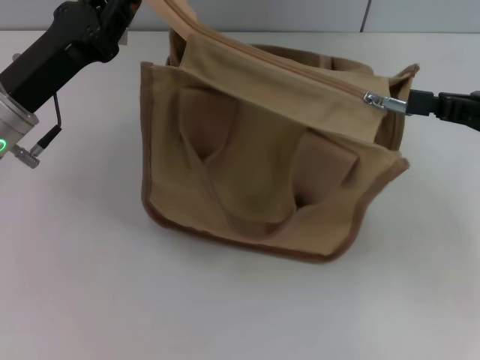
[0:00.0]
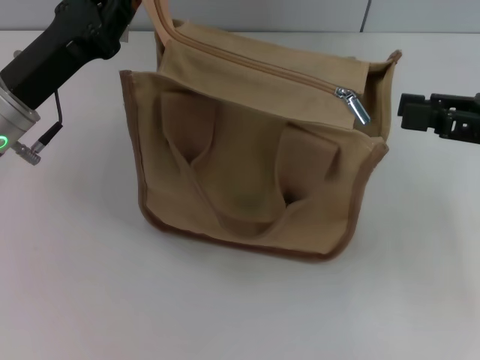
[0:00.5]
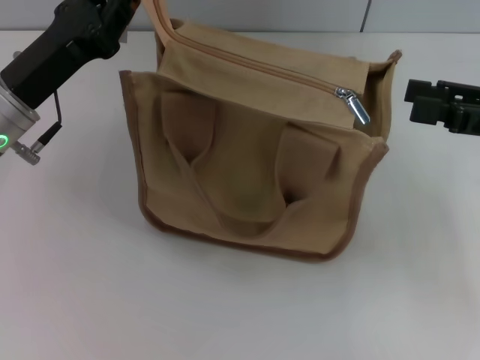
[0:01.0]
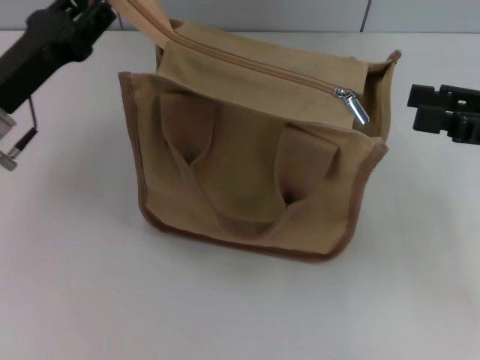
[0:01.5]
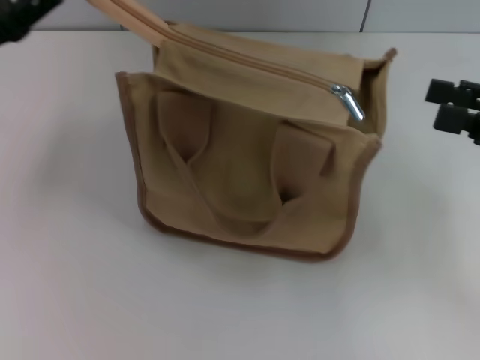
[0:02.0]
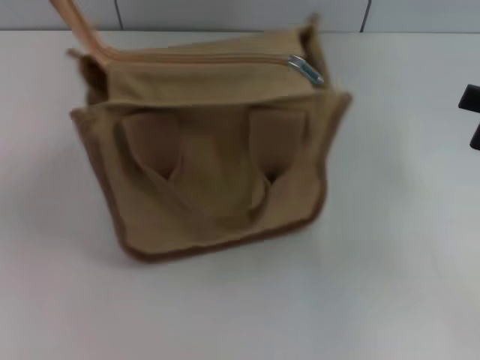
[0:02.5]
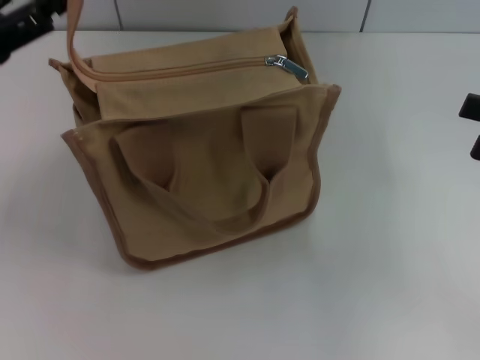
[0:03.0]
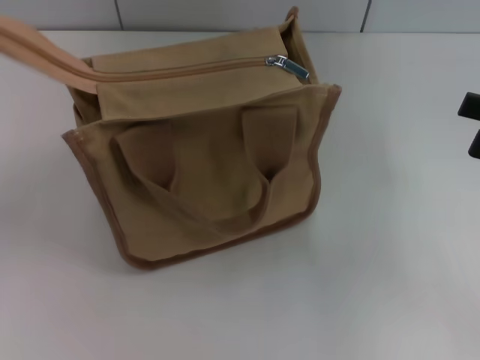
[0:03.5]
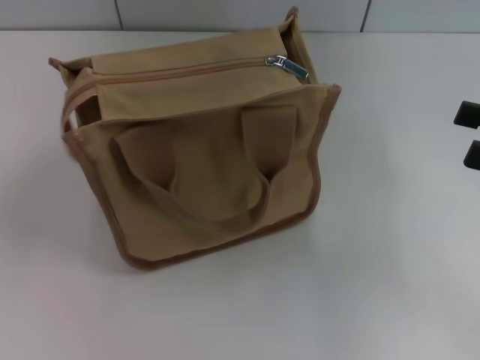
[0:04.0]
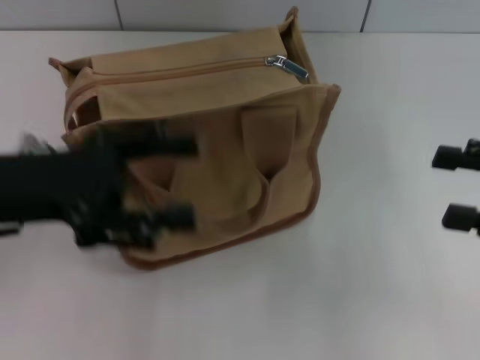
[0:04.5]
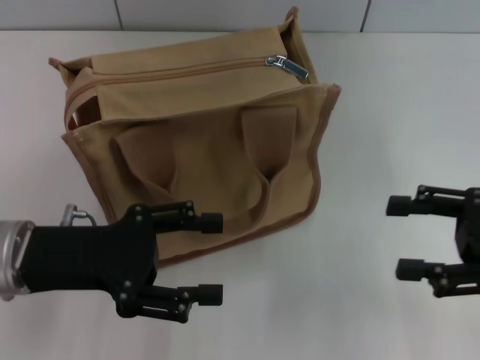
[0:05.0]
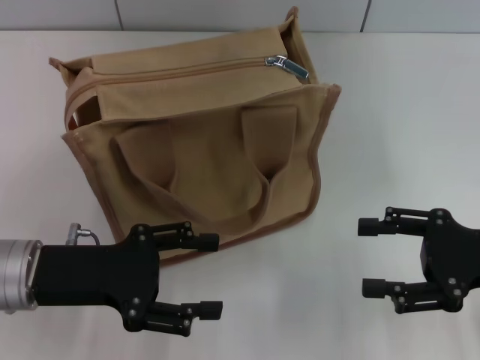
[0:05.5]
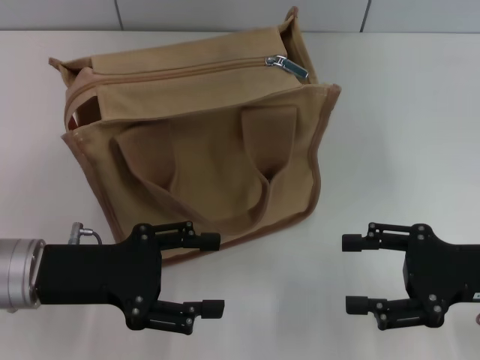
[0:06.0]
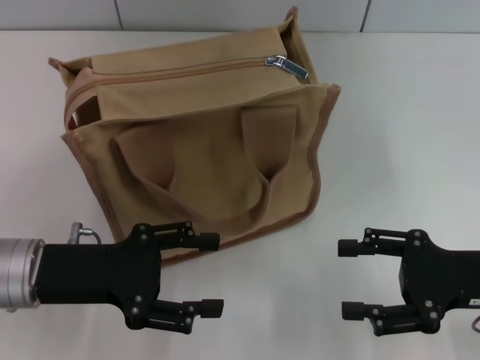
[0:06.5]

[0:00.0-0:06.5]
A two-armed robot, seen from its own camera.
Step, 0:00.5 to 0:03.5: Grab the zipper with your left hand.
0:00.0 to 0:02.0: The left gripper is displaced to the left by about 5 cm, and opens up, while the right gripper opens.
0:02.0 to 0:04.5: The left gripper is displaced to the right and backward by approximately 10 cm.
0:04.5 to 0:06.5: The left gripper goes roughly 10 cm downward; the right gripper goes roughly 10 cm downward and to the left.
